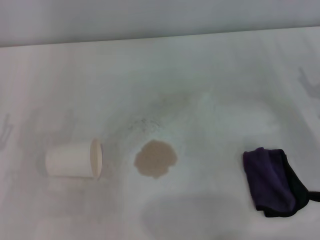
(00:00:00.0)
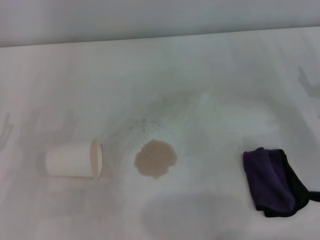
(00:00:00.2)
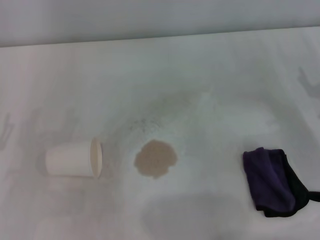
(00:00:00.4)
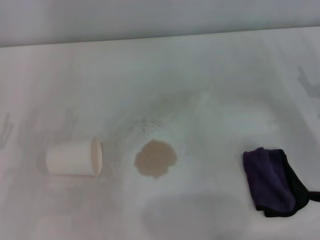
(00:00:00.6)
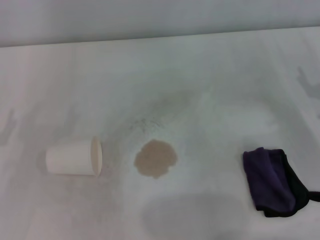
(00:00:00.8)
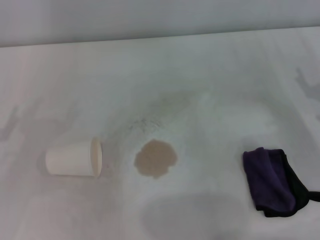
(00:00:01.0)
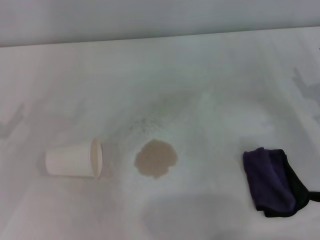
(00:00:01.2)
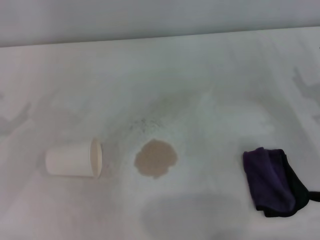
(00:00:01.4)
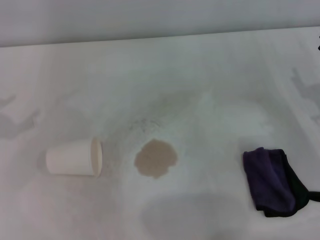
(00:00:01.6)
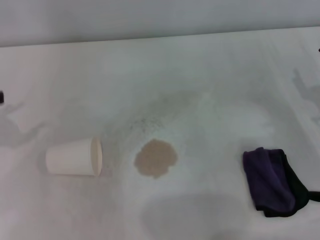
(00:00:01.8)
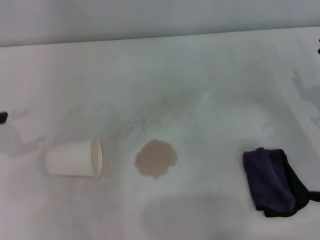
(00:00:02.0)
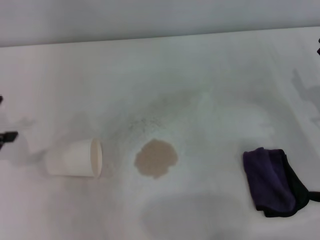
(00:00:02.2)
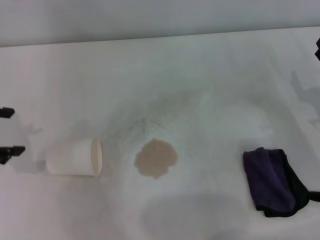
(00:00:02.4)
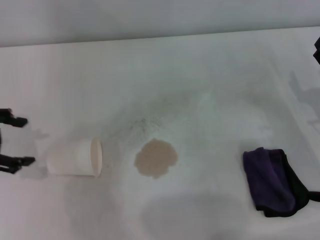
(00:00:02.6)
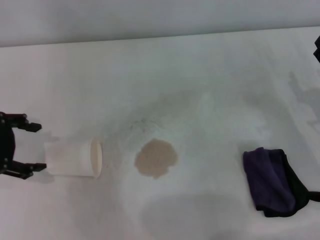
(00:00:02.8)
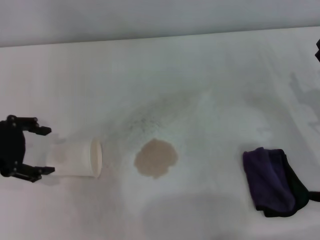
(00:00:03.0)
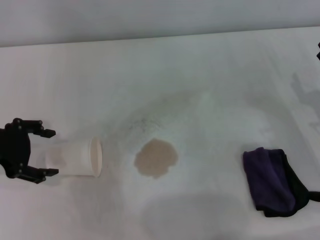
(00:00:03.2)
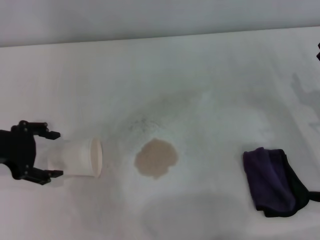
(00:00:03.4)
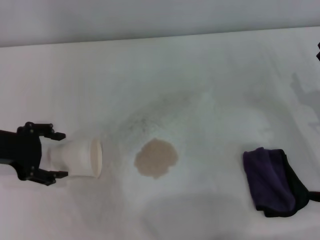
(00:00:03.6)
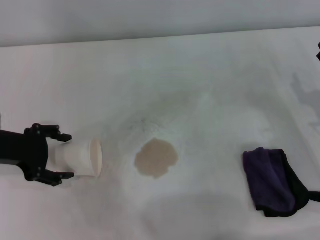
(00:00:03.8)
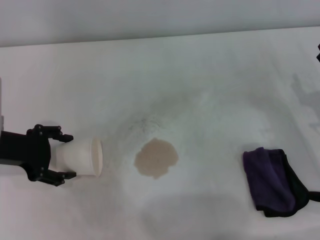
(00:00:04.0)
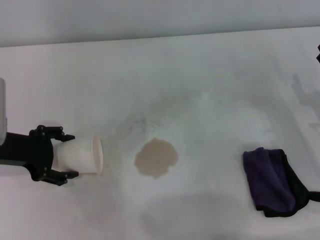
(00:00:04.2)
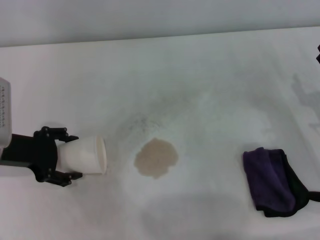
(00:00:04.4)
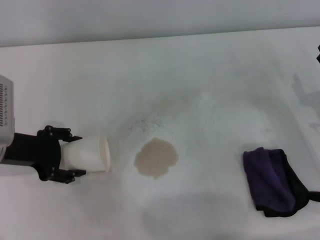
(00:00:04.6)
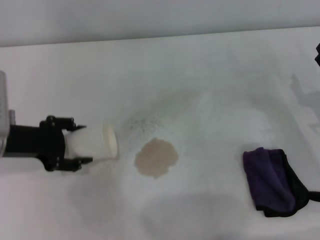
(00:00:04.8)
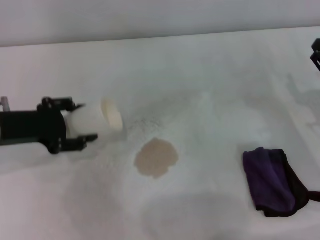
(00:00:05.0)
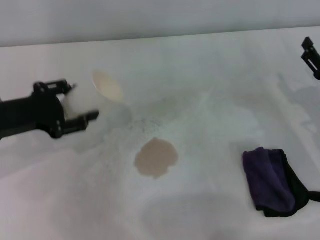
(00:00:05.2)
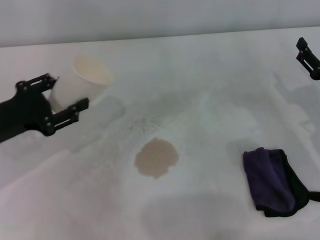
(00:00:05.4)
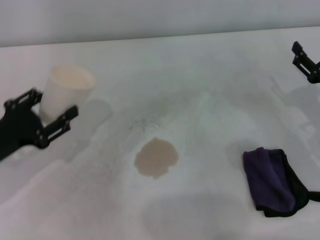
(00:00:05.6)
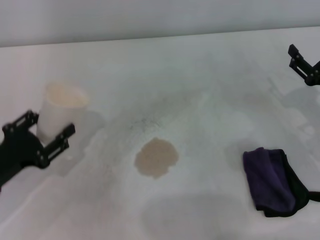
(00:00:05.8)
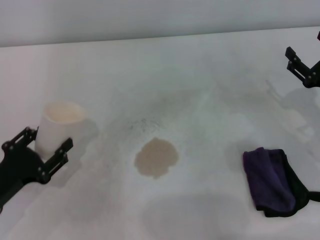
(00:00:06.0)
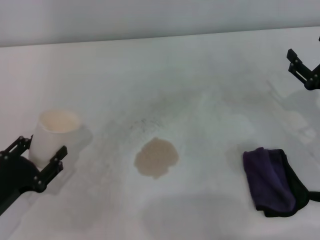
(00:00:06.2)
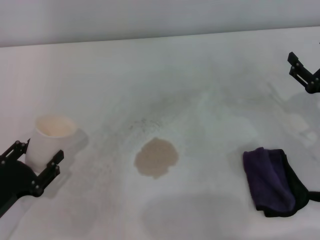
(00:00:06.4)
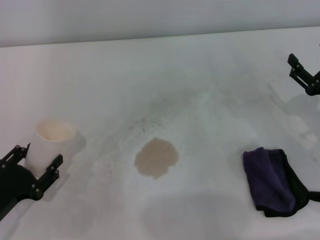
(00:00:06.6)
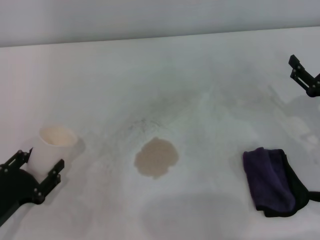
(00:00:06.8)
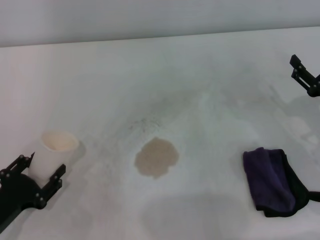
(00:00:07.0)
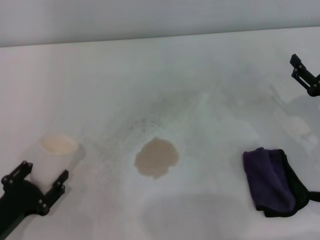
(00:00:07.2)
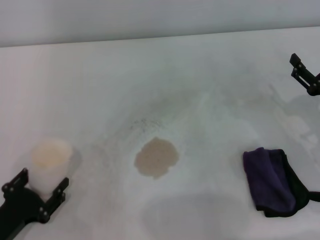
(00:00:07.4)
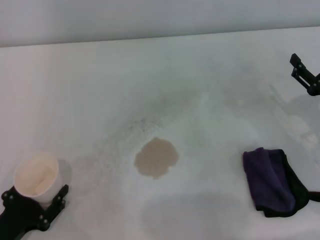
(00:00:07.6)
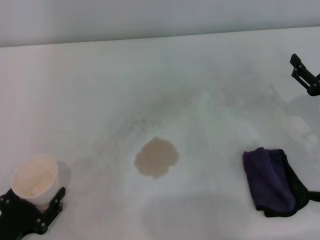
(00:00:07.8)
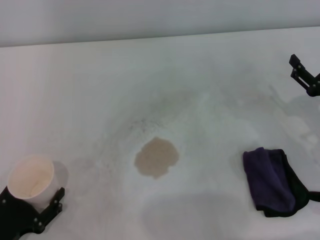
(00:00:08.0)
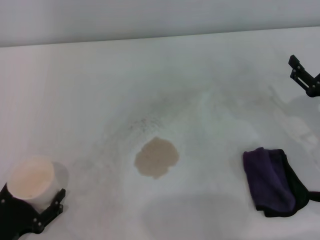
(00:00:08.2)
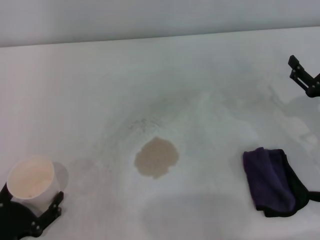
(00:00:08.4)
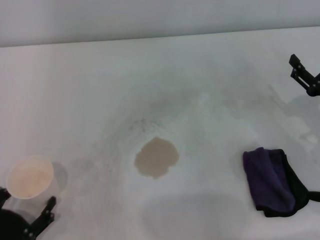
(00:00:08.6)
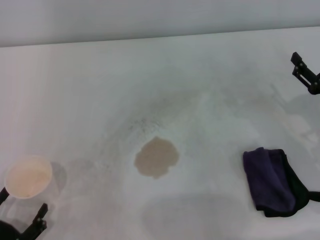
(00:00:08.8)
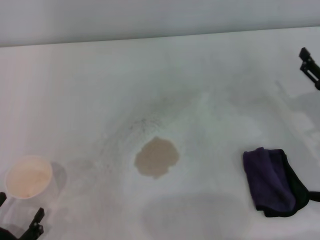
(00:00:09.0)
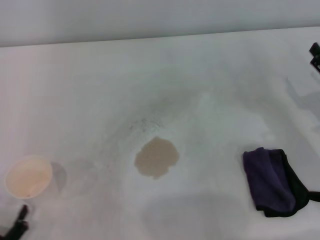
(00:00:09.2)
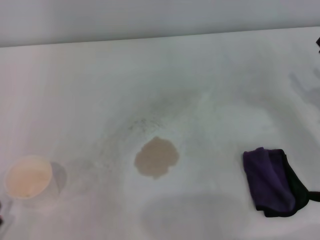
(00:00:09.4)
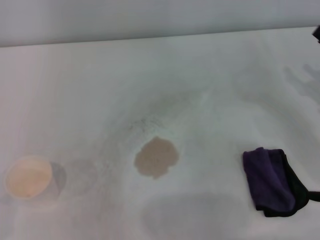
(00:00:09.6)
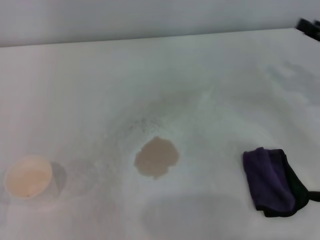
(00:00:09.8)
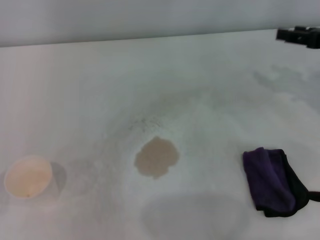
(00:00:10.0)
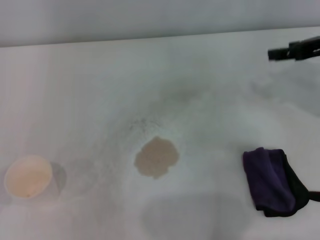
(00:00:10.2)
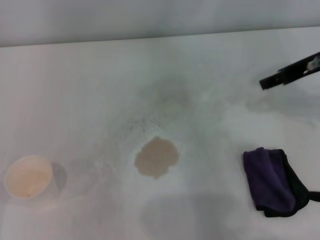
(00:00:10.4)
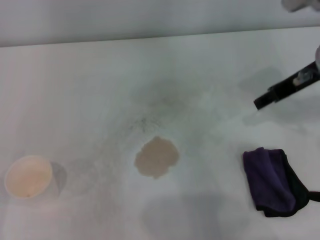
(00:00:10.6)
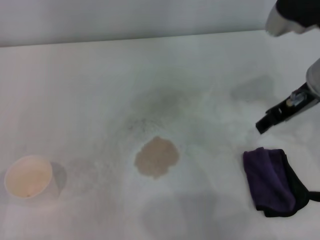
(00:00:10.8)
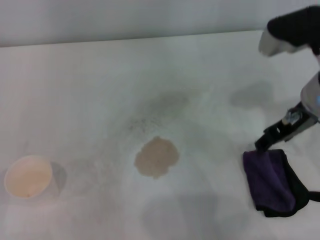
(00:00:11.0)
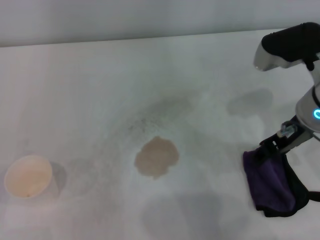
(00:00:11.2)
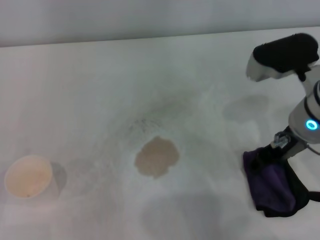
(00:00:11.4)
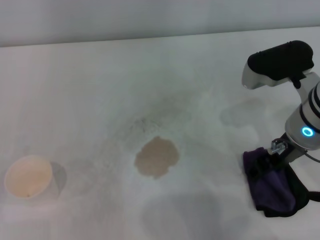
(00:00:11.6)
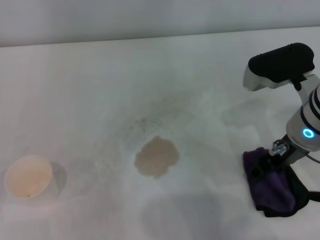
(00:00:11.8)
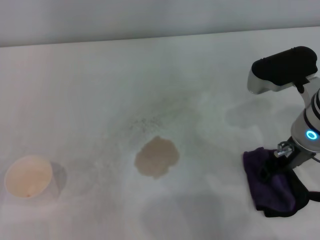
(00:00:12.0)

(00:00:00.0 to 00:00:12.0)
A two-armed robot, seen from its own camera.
Step, 00:00:00.0 - 00:00:04.4: Grasp the paper cup with the left gripper.
Step, 00:00:04.6 - 00:00:08.2: Stand the paper cup upright with the left gripper.
00:00:01.6 - 00:00:03.0: The left gripper moves to the right, some 10 cm.
00:00:03.0 - 00:00:04.4: The left gripper travels downward by some 5 cm.
00:00:04.4 - 00:00:06.0: The left gripper is displaced backward and downward by approximately 15 cm, and closes its fingers.
00:00:06.0 - 00:00:07.6: The left gripper moves backward, approximately 5 cm.
00:00:07.6 - 00:00:09.0: The left gripper moves backward, about 5 cm, and opens.
00:00:09.0 - 00:00:10.4: The right gripper is displaced upward, forward and to the left by about 20 cm. Meanwhile the left gripper moves to the left, about 5 cm.
00:00:10.4 - 00:00:12.0: The right gripper travels downward and to the left by approximately 10 cm.

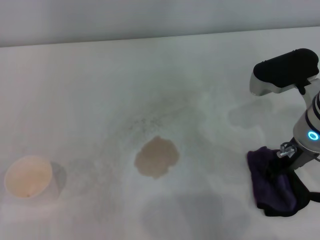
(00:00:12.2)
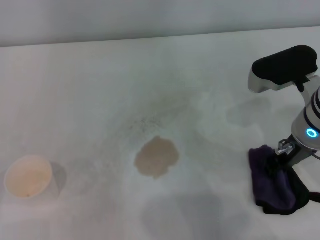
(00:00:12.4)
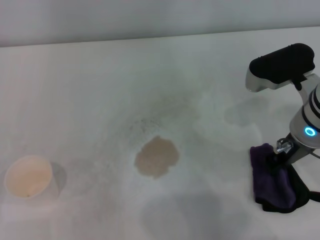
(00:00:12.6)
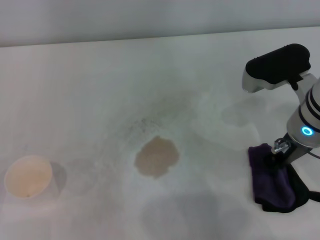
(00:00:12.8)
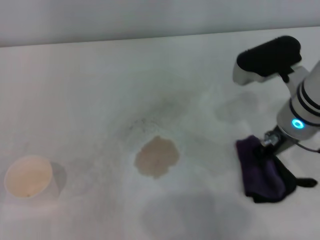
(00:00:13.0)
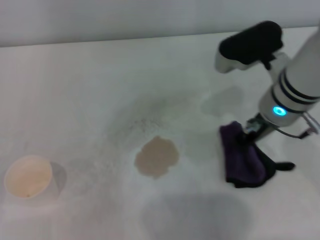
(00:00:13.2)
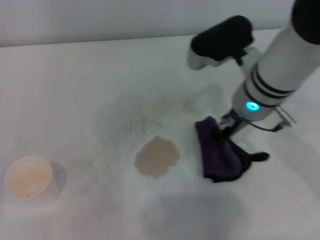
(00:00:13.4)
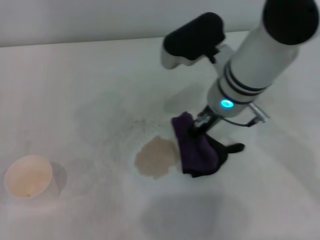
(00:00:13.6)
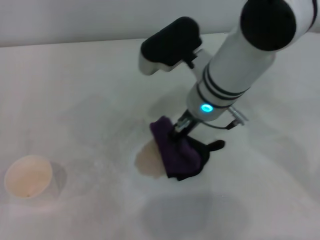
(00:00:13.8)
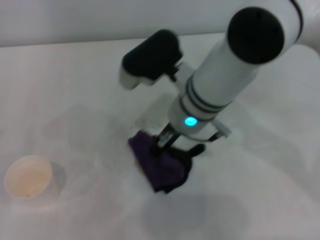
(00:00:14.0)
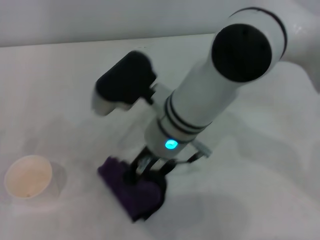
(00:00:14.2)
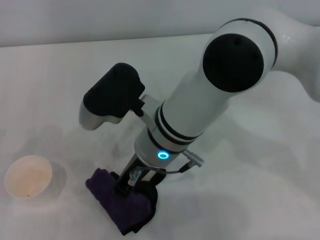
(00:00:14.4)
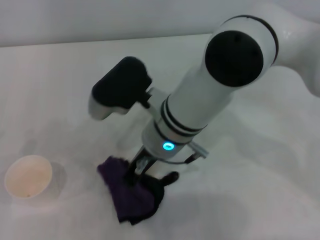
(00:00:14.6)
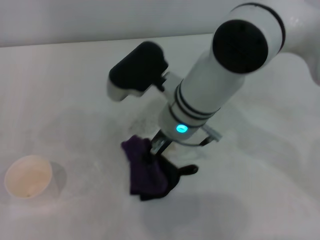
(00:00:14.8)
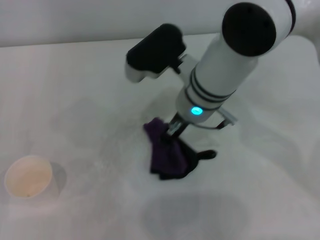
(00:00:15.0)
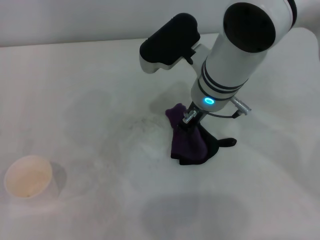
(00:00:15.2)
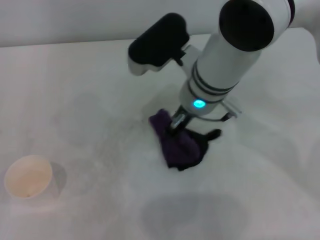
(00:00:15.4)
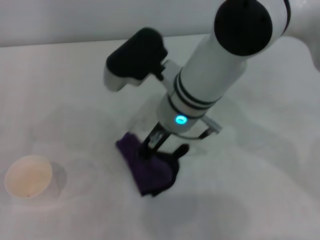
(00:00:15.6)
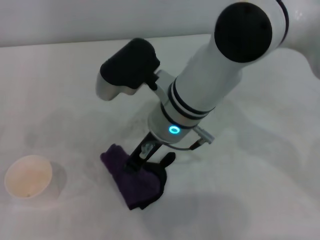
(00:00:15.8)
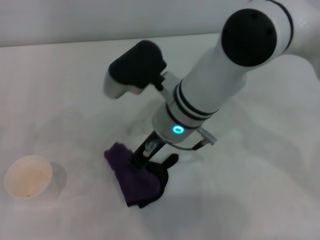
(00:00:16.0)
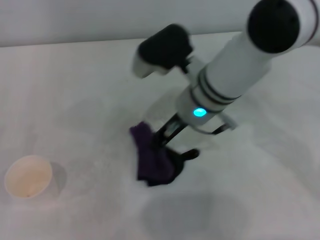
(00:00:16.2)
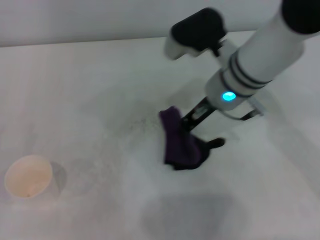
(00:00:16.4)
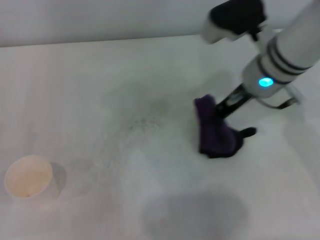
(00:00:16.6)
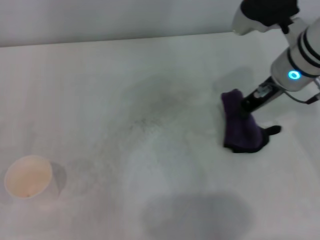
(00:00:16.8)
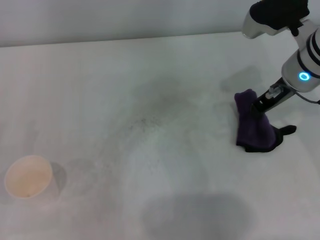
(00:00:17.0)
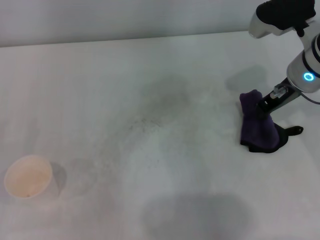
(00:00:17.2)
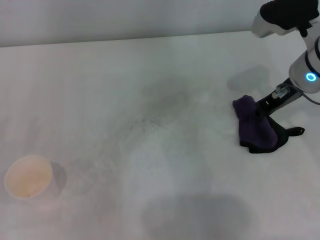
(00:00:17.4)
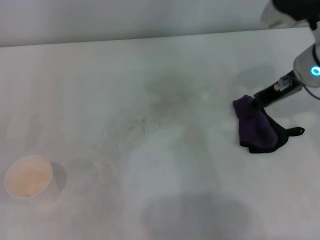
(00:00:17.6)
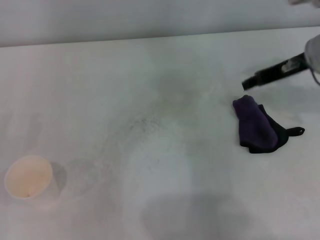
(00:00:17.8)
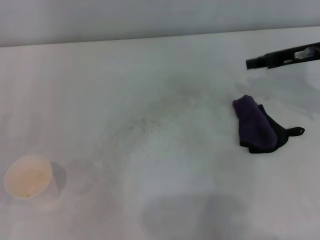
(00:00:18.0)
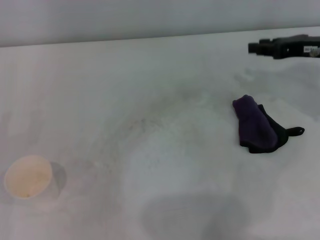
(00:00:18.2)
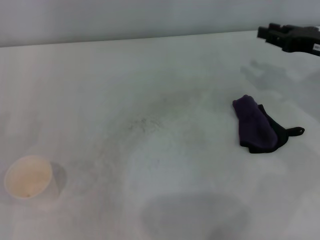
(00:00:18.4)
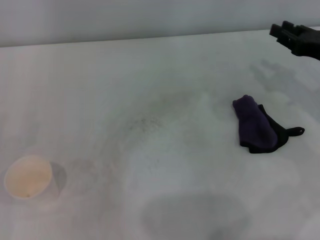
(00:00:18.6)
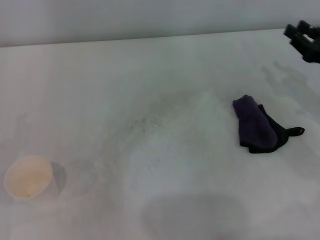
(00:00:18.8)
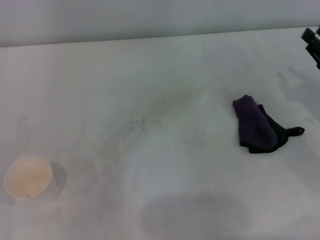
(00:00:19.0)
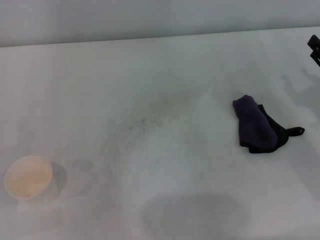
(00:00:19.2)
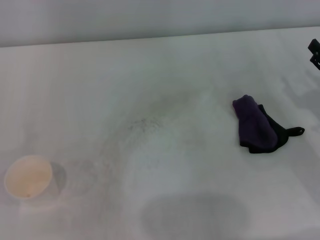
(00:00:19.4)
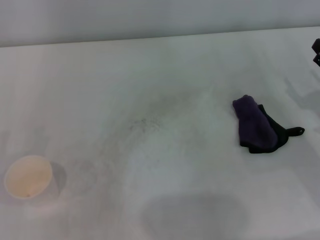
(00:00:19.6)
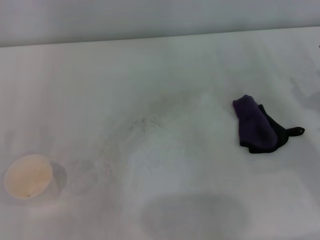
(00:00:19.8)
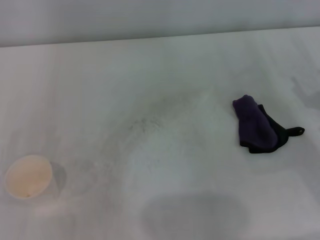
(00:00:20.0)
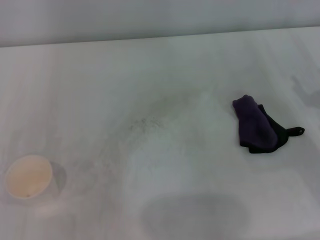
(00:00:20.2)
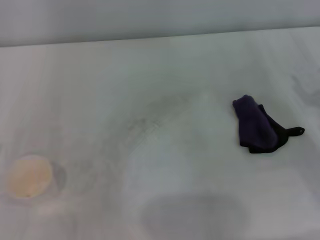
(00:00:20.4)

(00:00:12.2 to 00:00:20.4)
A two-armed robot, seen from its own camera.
Step, 00:00:12.8 - 00:00:16.4: Wipe the stains off the table with the right gripper.
Step, 00:00:16.6 - 00:00:17.2: Place the rag on the table with the right gripper.
00:00:12.2 - 00:00:13.8: The right gripper moves to the left and forward, approximately 15 cm, and closes up.
00:00:15.4 - 00:00:17.2: The right gripper heads to the right, covering some 15 cm.
00:00:17.2 - 00:00:18.8: The right gripper shifts about 15 cm to the right, downward and backward.
00:00:18.8 - 00:00:20.4: The right gripper travels backward by approximately 5 cm, and opens up.
